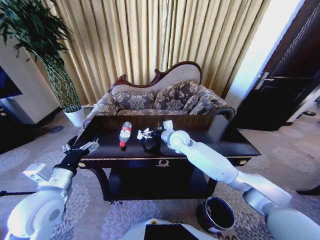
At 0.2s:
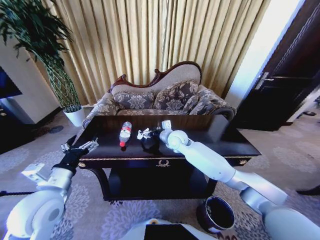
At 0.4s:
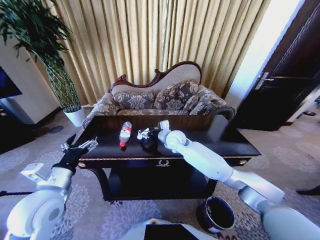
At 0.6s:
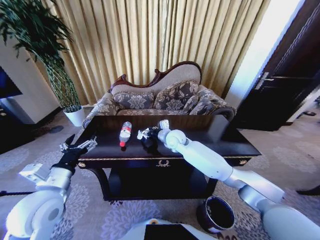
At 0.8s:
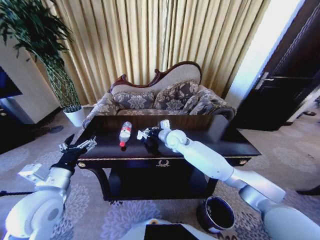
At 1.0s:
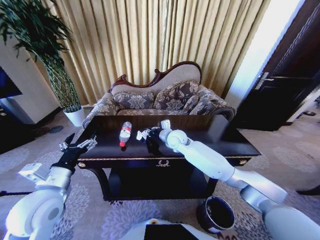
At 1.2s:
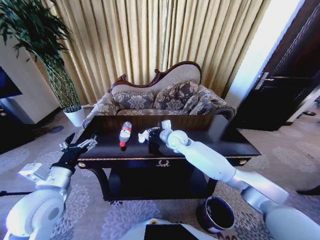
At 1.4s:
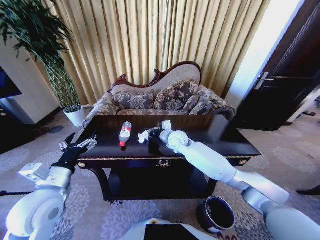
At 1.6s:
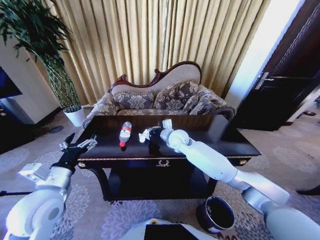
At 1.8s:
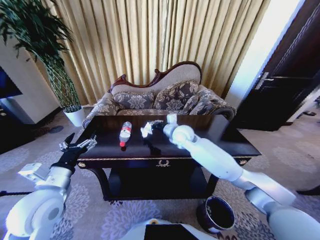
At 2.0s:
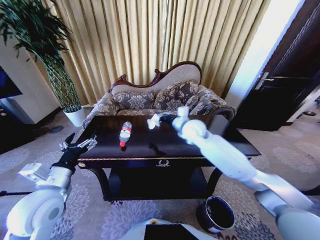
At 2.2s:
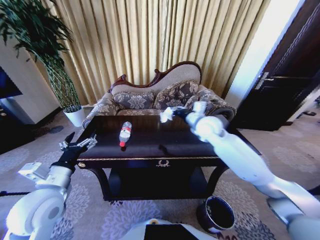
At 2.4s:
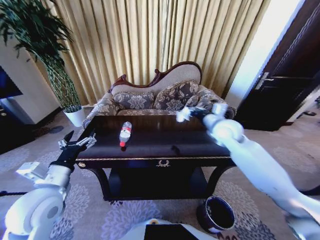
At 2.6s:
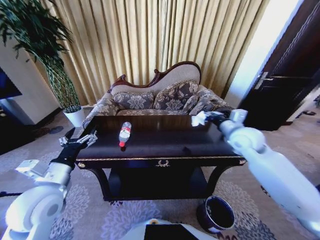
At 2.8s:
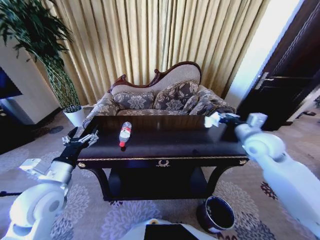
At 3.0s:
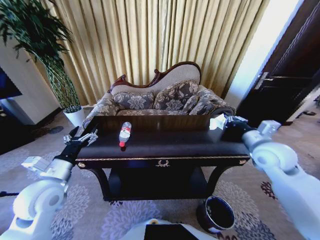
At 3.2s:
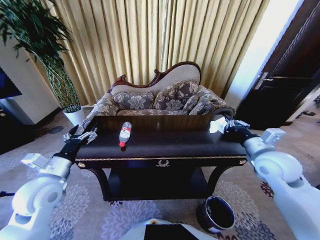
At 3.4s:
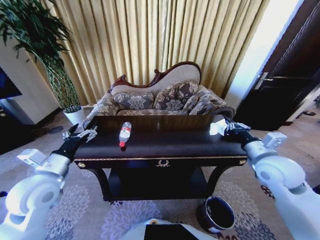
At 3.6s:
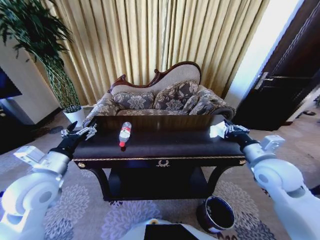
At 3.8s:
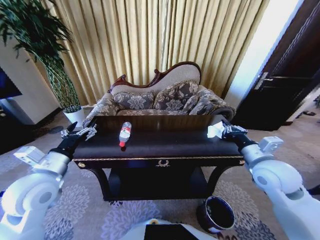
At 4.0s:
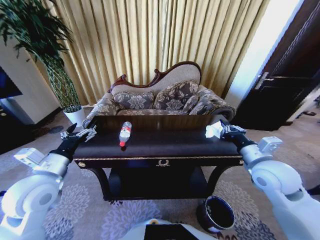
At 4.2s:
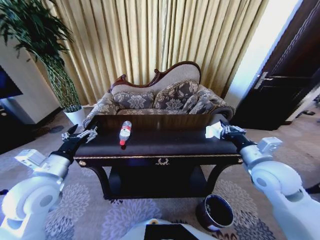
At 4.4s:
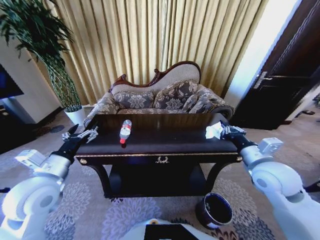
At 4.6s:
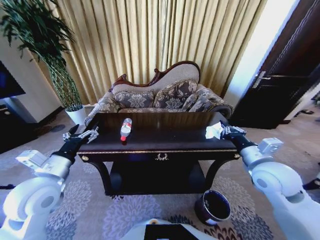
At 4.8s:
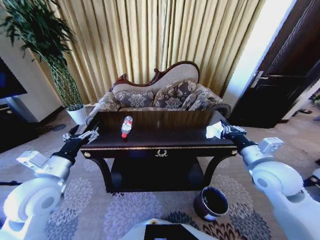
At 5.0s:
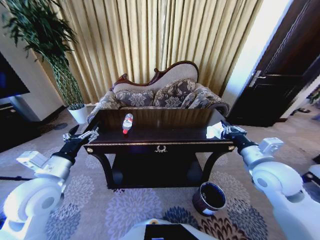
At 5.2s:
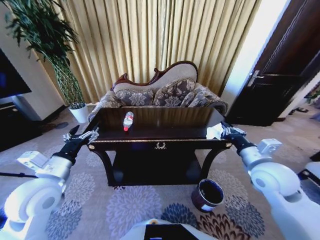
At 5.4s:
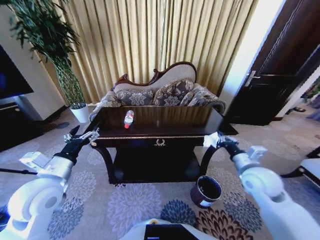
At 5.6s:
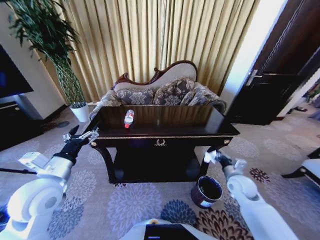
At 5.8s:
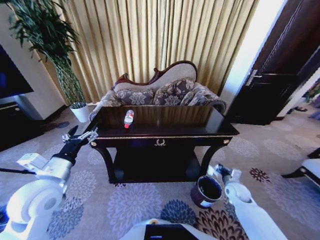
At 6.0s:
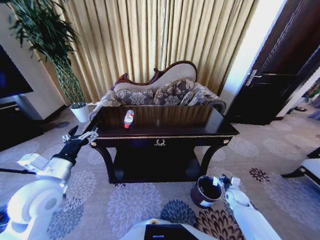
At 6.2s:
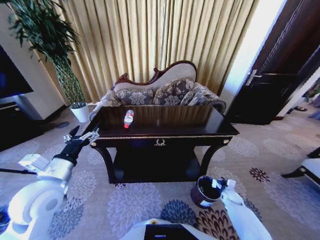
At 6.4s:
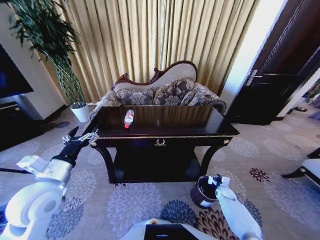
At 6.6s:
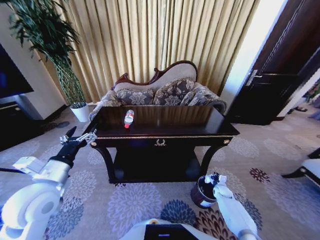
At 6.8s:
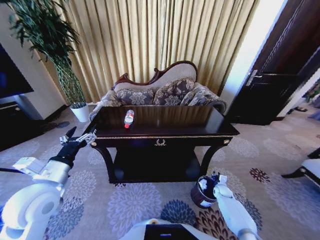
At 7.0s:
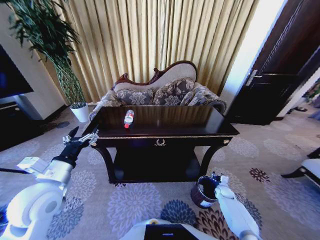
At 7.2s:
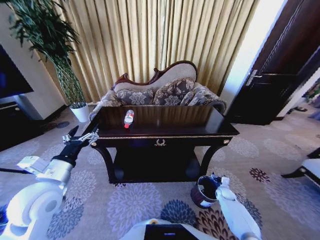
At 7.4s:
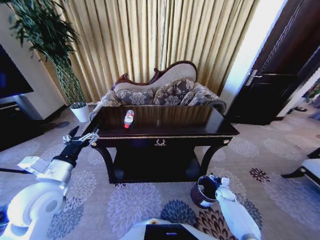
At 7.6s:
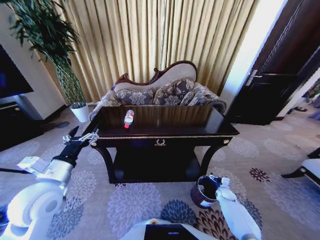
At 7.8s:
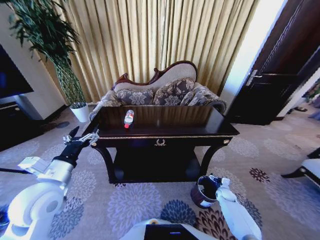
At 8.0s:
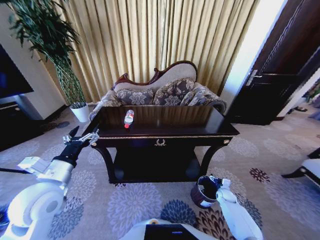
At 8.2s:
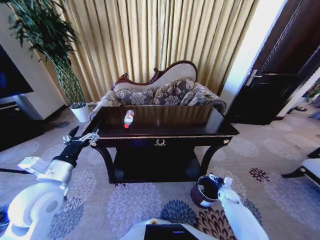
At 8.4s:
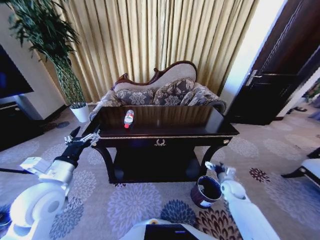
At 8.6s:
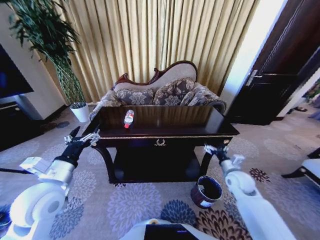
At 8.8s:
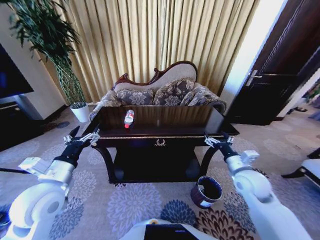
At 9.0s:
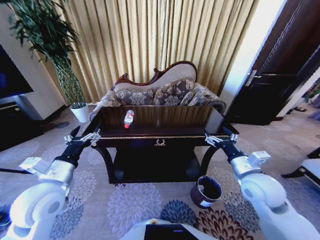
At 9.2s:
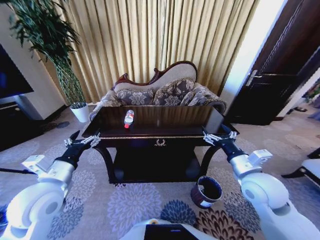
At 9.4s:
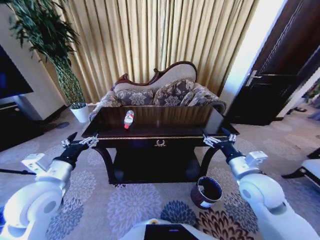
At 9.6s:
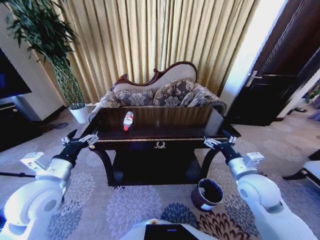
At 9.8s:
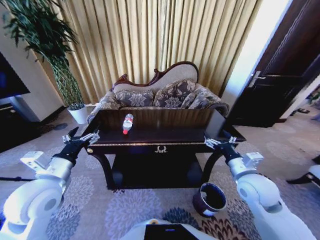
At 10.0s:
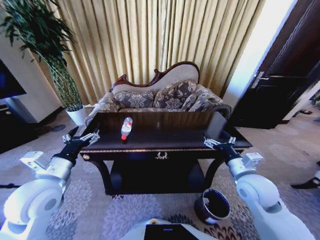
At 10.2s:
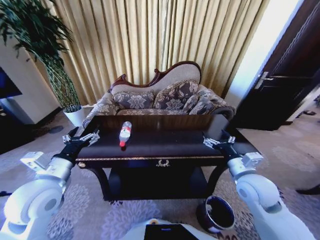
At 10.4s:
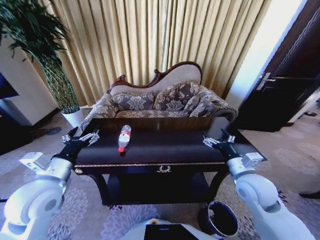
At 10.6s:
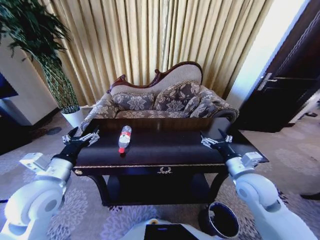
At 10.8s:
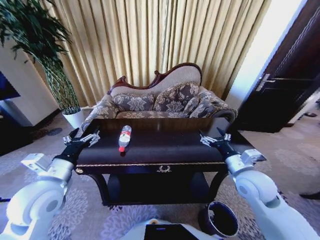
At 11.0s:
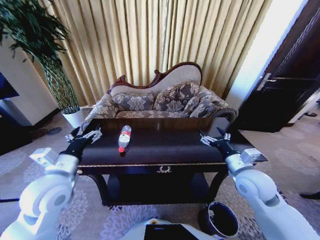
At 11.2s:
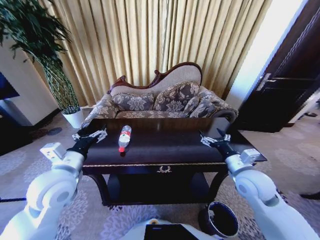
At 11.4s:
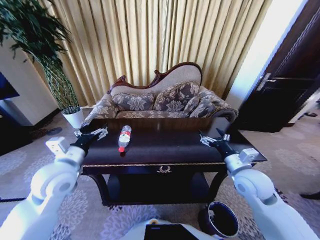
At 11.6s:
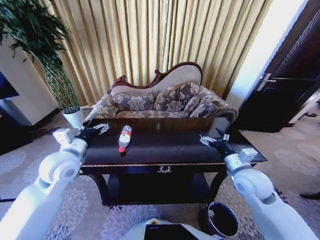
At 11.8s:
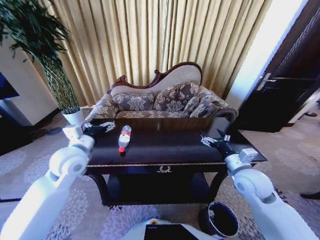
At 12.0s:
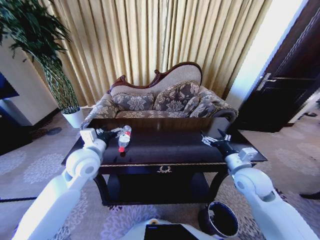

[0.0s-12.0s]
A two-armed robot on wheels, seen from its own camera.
Task of the whole recording: Move to the front of the table and place the trash on the table into the trash bin.
0.0s to 1.6s: The right gripper closes up.
1.6s to 3.0s: The right gripper shifts about 30 cm to the right and backward.
3.0s to 4.4s: The right gripper is displaced backward by some 5 cm.
4.4s to 6.0s: The right gripper heads downward, covering roughly 35 cm.
6.0s to 7.6s: The right gripper shifts about 5 cm downward, and opens its fingers.
7.6s to 9.0s: The right gripper shifts roughly 40 cm upward.
10.4s to 12.0s: The left gripper shifts roughly 15 cm forward and to the right.

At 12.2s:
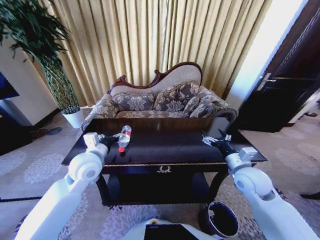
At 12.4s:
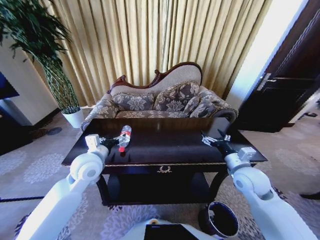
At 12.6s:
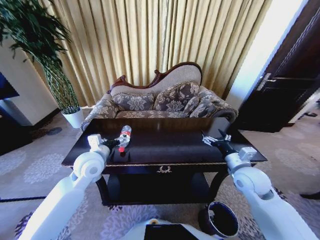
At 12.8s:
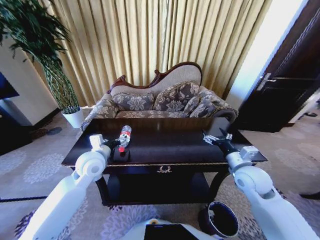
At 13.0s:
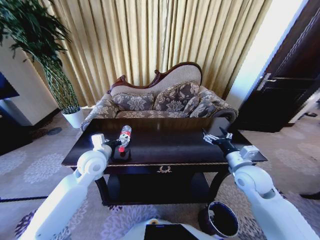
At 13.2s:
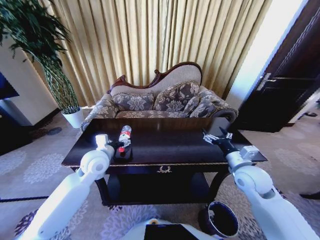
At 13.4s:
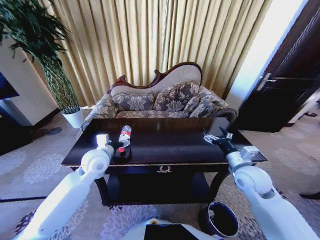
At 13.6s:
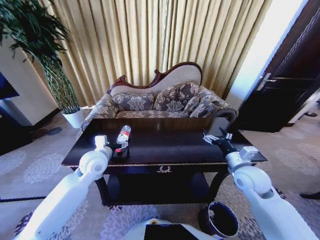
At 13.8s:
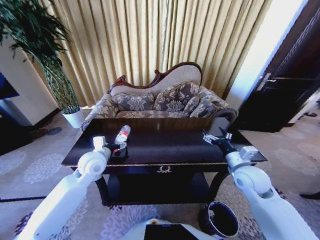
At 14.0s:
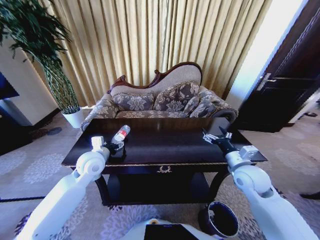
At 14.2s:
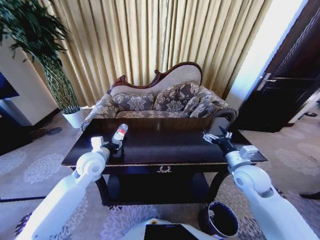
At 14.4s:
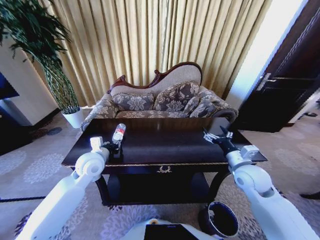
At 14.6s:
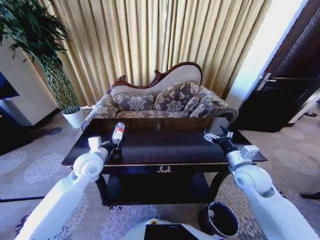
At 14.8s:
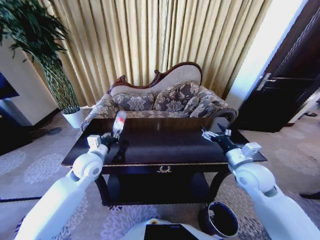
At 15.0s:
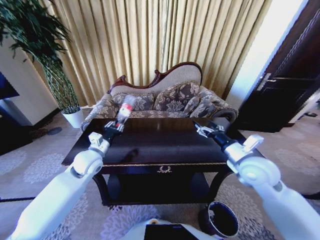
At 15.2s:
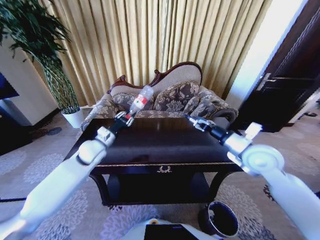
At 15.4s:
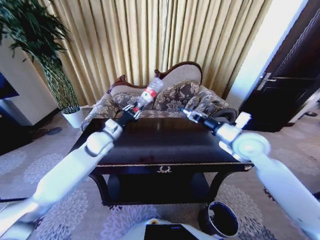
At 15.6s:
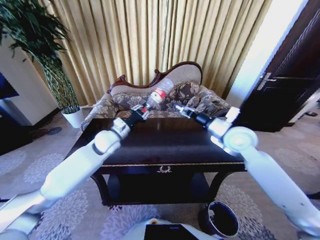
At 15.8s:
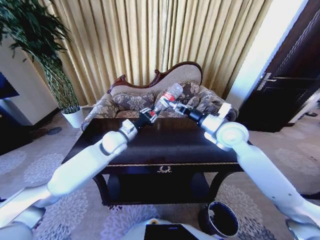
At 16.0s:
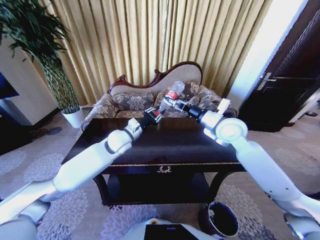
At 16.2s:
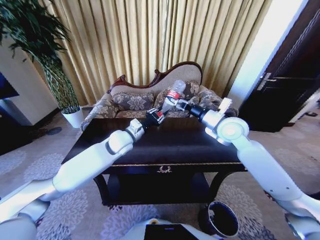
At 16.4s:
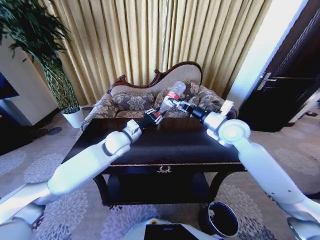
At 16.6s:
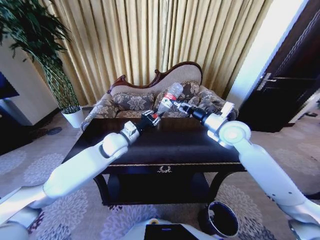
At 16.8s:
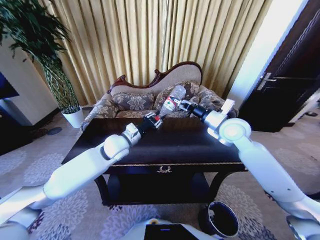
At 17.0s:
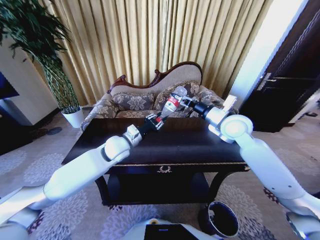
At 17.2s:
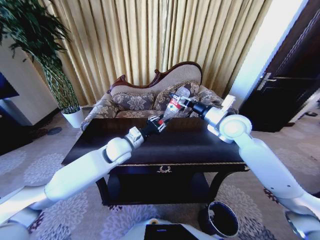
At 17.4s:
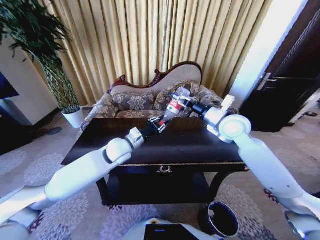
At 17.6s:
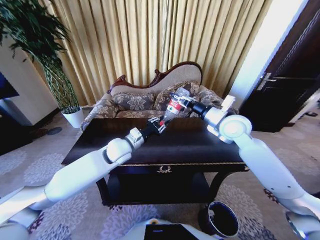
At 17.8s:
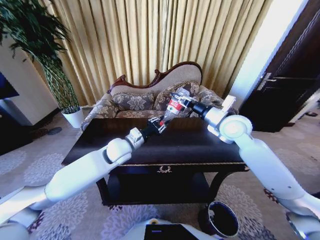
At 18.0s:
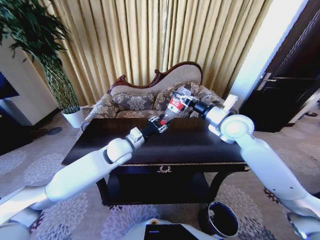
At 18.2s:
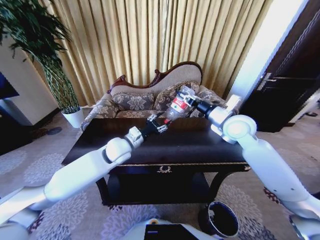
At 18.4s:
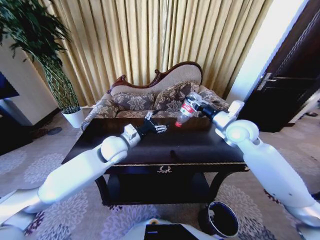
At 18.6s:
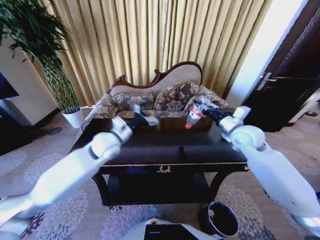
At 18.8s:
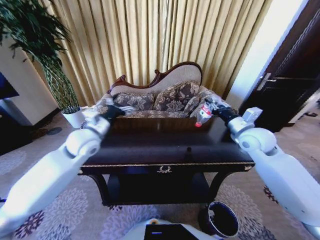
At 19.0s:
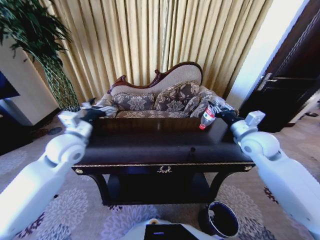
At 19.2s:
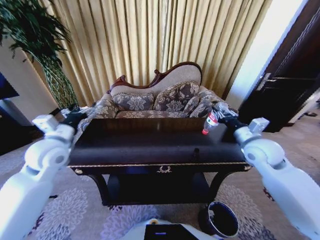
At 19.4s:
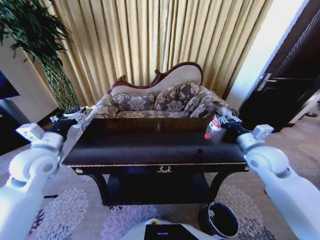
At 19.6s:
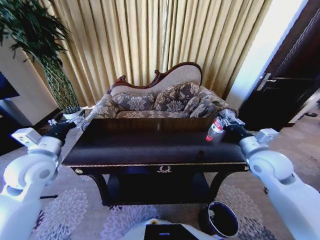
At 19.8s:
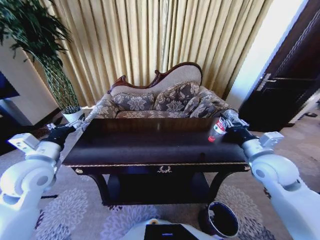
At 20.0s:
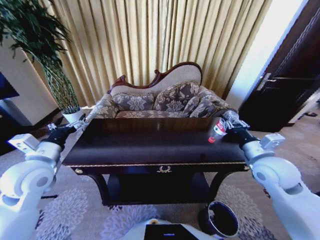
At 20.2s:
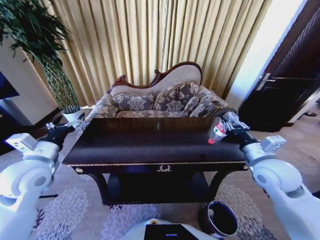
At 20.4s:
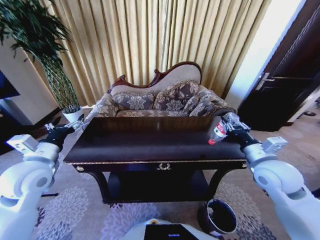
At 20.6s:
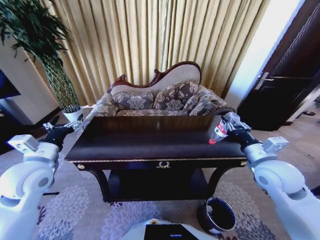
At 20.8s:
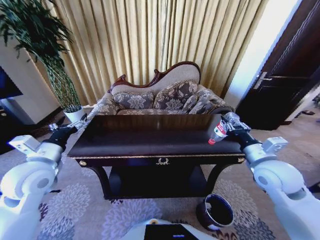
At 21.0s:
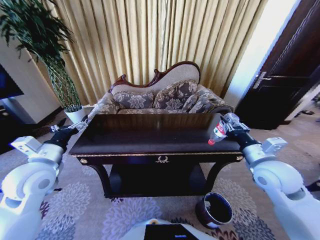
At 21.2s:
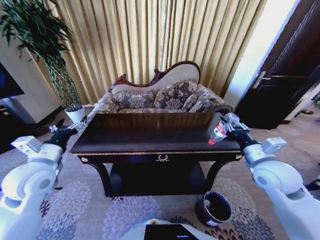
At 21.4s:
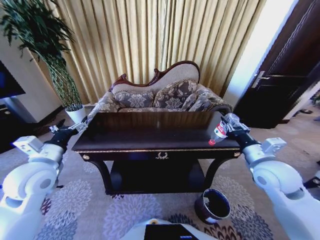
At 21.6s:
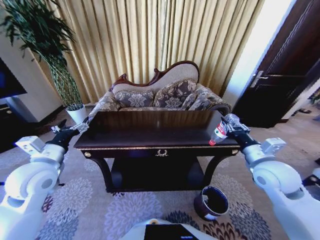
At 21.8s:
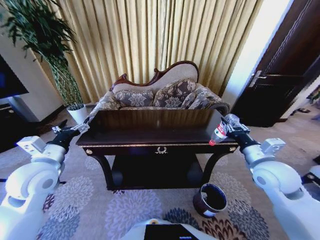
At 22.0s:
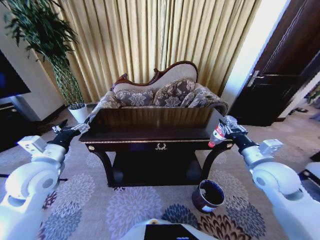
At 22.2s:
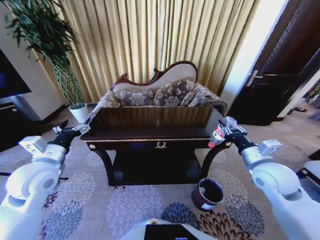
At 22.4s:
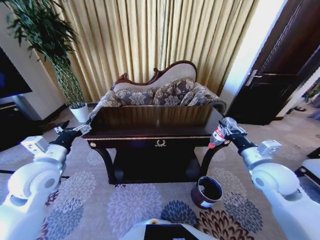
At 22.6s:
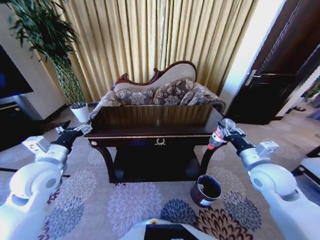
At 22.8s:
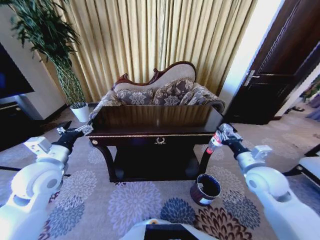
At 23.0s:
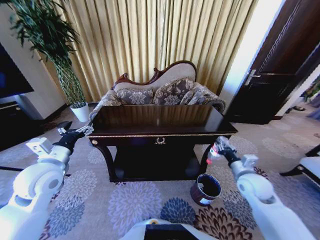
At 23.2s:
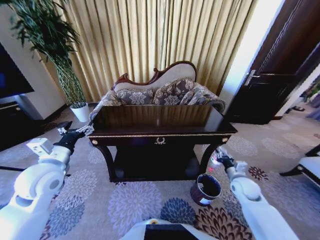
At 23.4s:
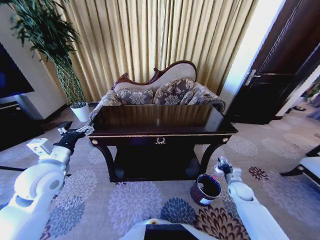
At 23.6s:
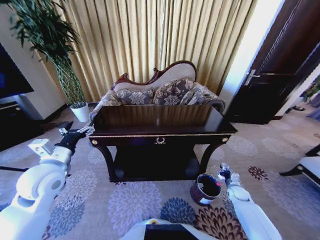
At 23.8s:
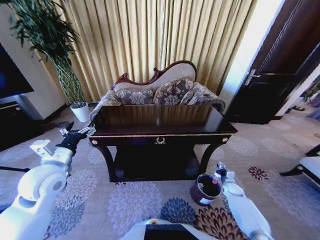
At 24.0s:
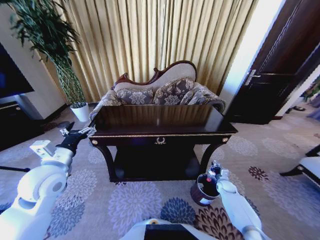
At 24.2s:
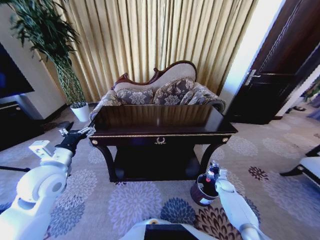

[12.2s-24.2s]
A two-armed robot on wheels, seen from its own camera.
Task of the whole recording: Move to the front of the table and place the trash on the table into the trash bin.
12.2s to 13.8s: The grippers stay close to where they were, moving slightly.
13.8s to 15.2s: The right gripper heads upward, covering roughly 10 cm; the left gripper closes.
15.2s to 16.6s: The right gripper goes approximately 10 cm forward; the left gripper shifts approximately 10 cm to the right.
16.6s to 18.2s: The right gripper closes up.
18.2s to 19.8s: The right gripper is displaced backward, to the right and downward by approximately 15 cm; the left gripper heads to the left and backward, covering some 25 cm, and opens its fingers.
22.6s to 24.2s: The right gripper goes approximately 35 cm downward.
